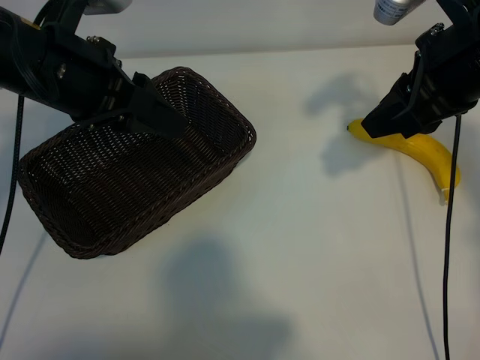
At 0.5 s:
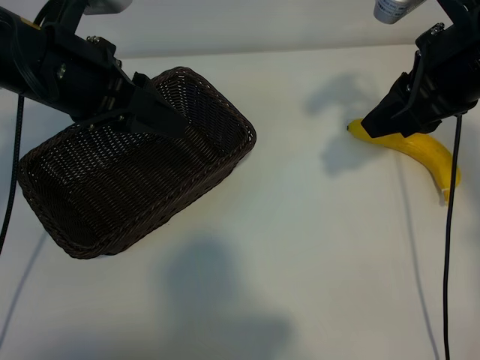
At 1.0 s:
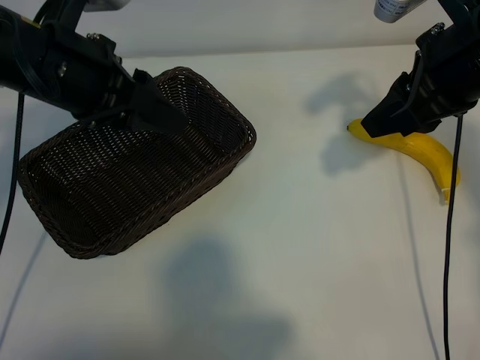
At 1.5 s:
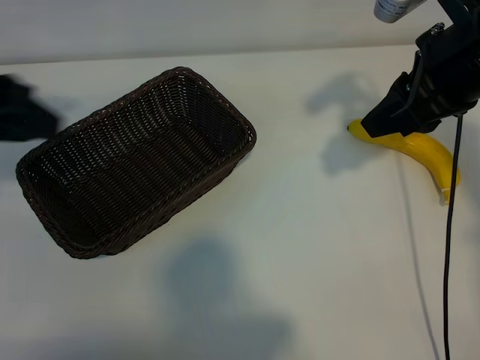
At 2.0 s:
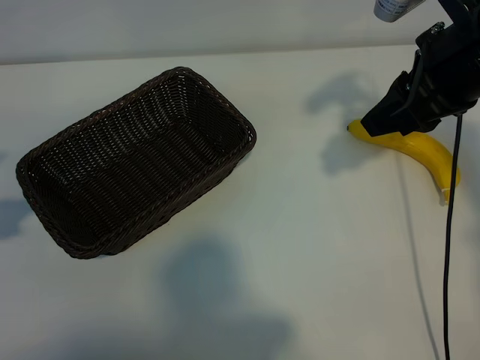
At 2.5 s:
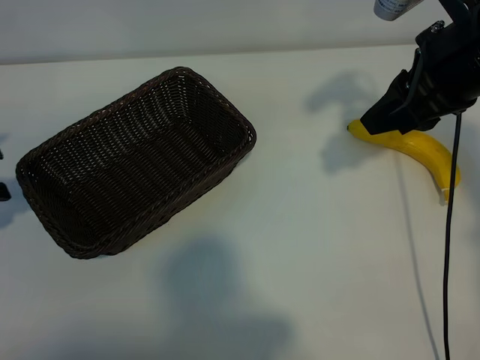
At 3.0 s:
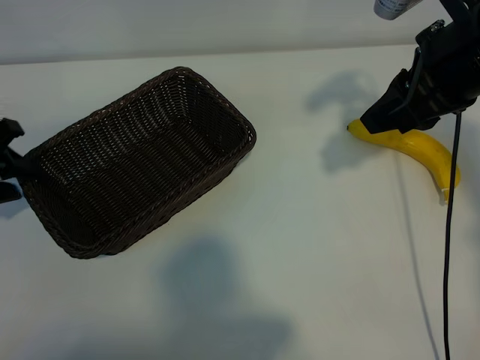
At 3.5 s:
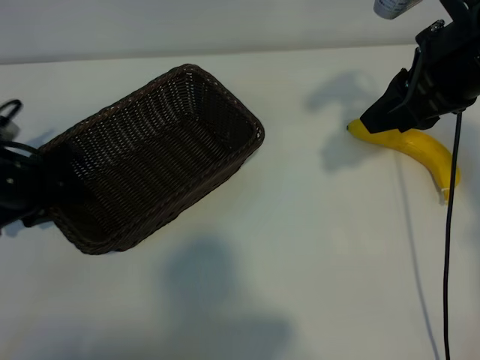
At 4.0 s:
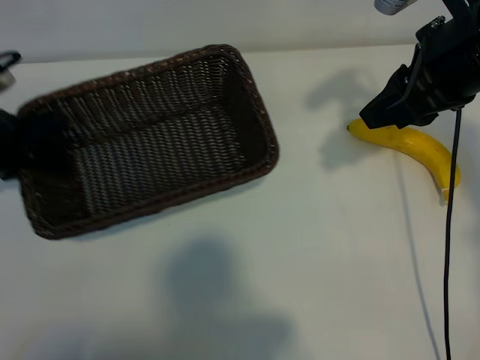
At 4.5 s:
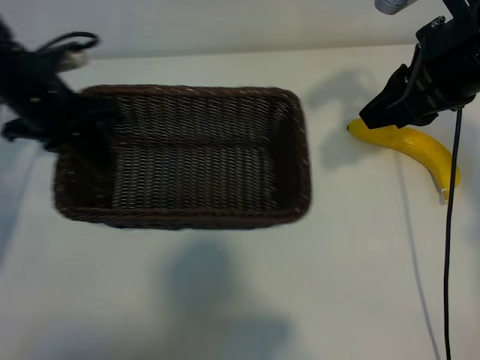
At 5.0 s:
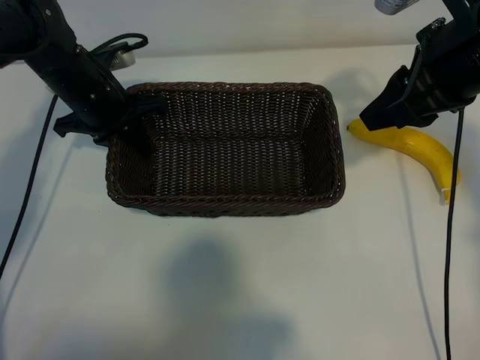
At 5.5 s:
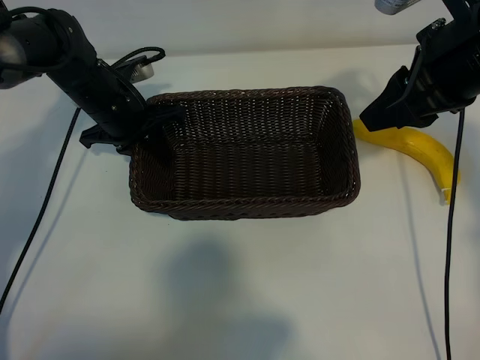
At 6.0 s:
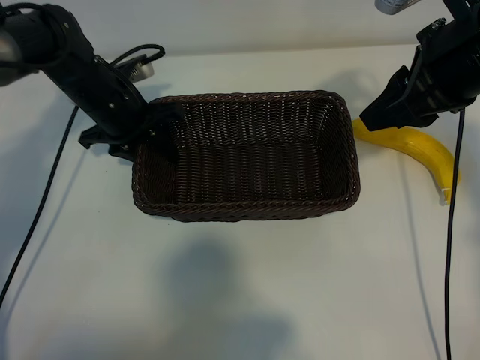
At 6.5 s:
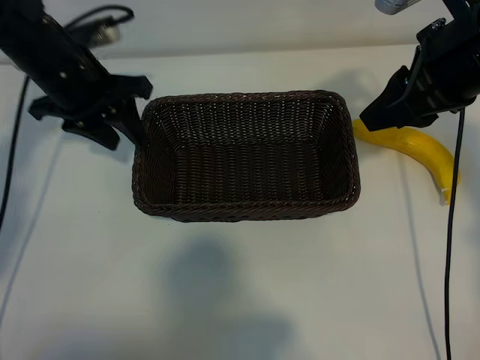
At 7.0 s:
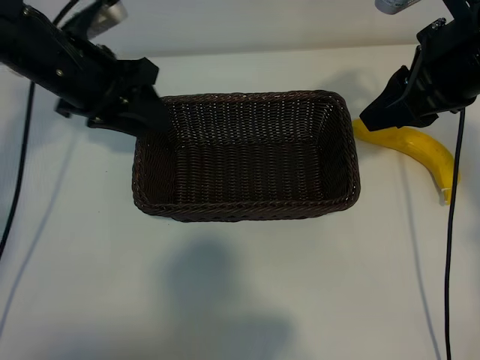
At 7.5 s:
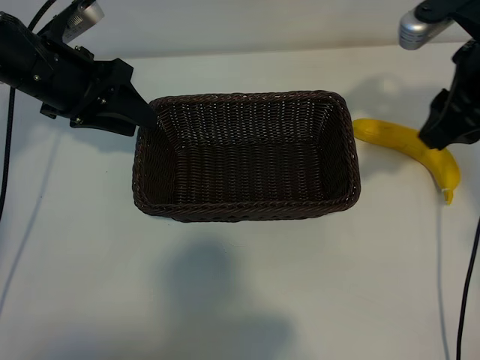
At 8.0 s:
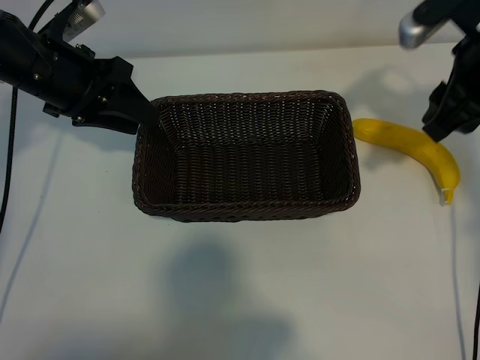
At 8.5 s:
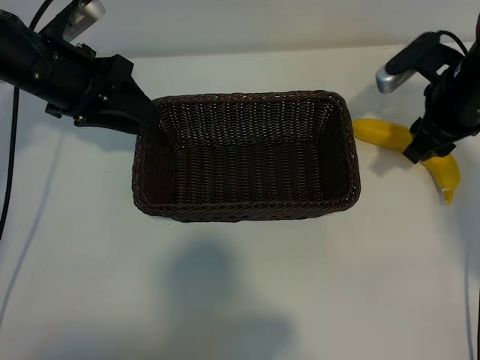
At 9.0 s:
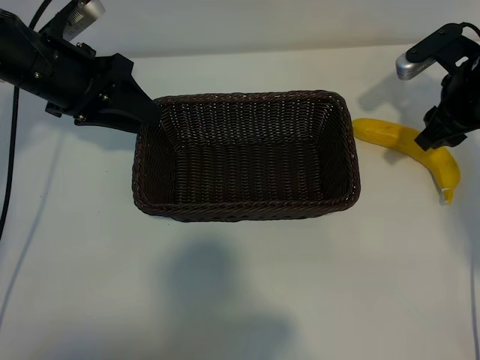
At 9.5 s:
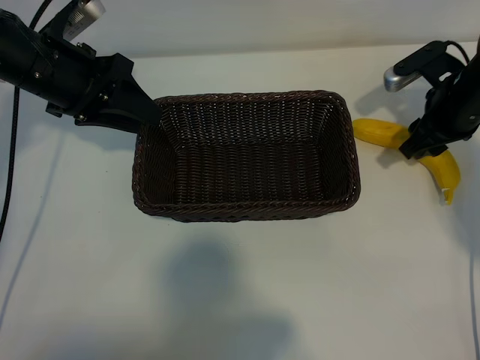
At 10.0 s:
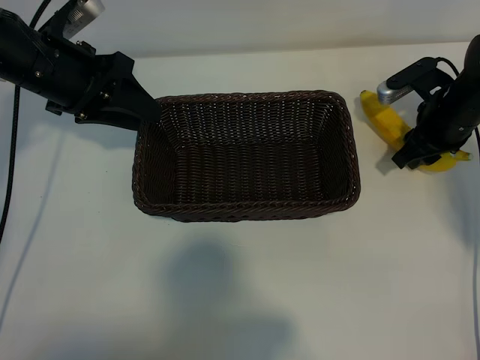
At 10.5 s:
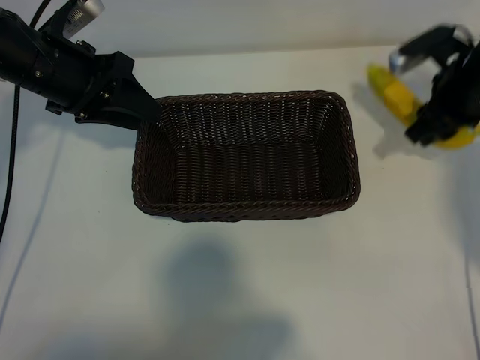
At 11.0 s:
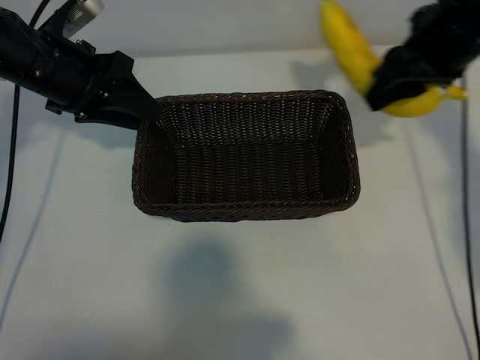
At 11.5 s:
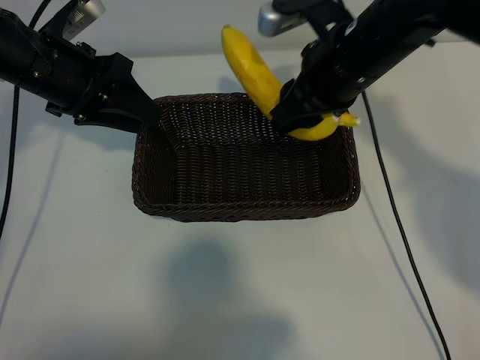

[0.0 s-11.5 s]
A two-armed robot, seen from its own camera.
Task of the whole recording: pick up the banana and put it into the basket.
Step, 1.0 to 3.0 s: Grasp the basket with the left gripper.
Step, 3.5 to 6.0 s: Place the basket in the center of the table with the left gripper.
Step, 6.5 to 9.5 s: Grasp the banana with right gripper.
